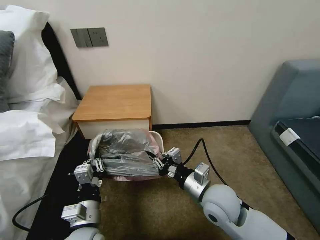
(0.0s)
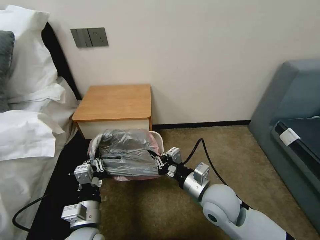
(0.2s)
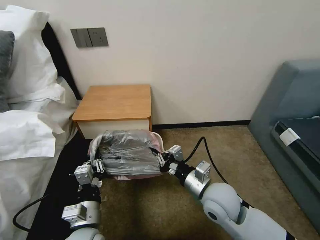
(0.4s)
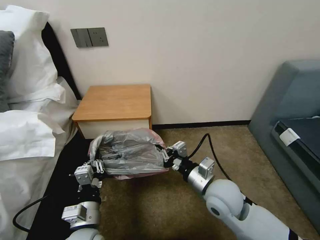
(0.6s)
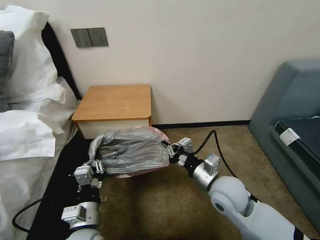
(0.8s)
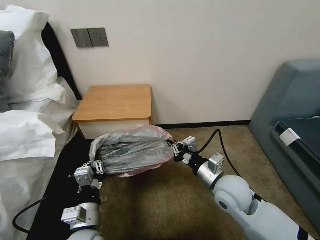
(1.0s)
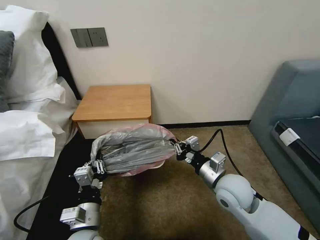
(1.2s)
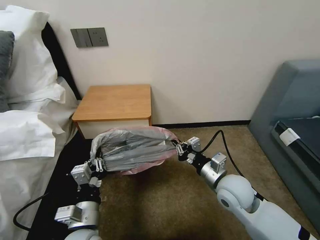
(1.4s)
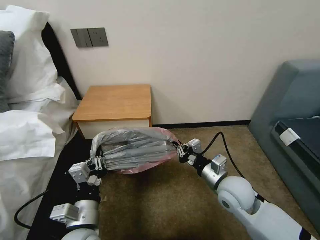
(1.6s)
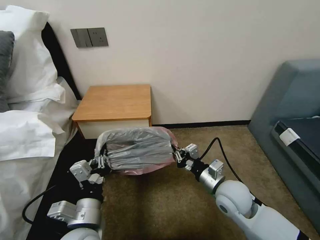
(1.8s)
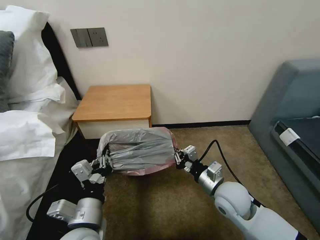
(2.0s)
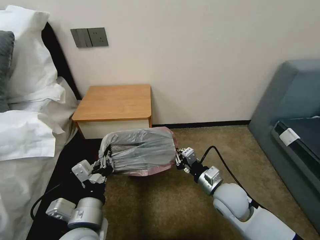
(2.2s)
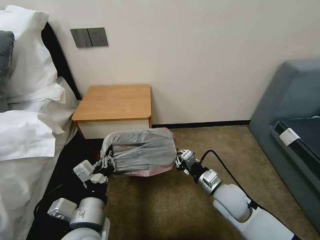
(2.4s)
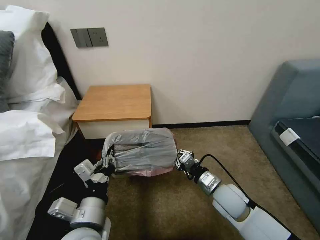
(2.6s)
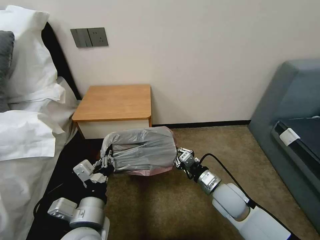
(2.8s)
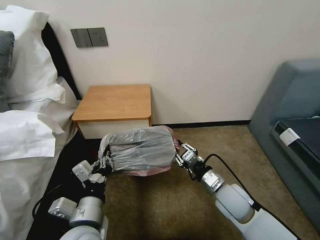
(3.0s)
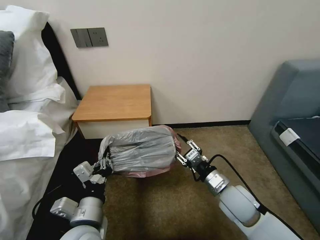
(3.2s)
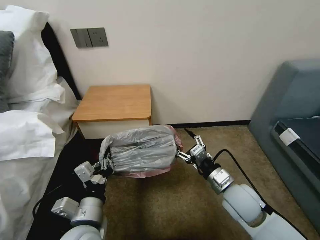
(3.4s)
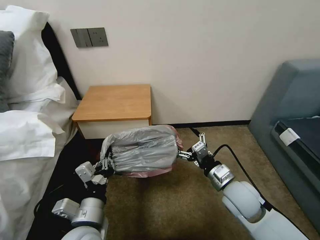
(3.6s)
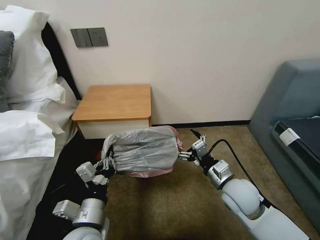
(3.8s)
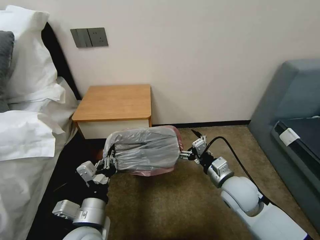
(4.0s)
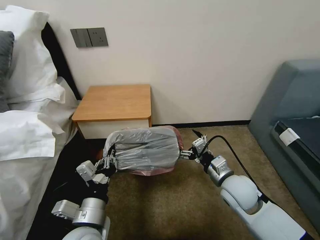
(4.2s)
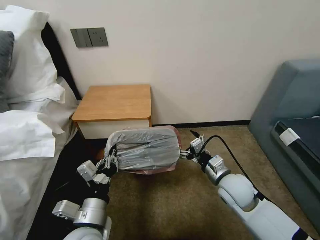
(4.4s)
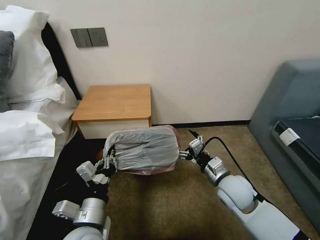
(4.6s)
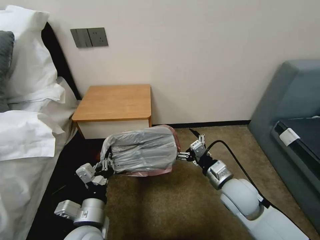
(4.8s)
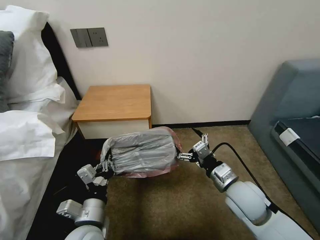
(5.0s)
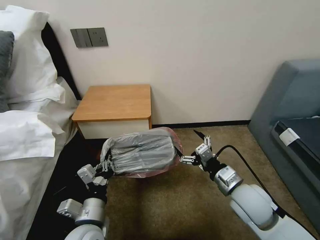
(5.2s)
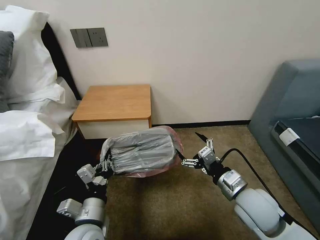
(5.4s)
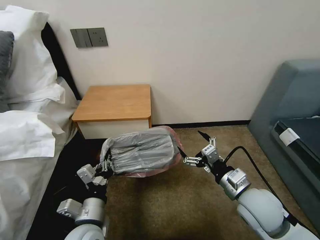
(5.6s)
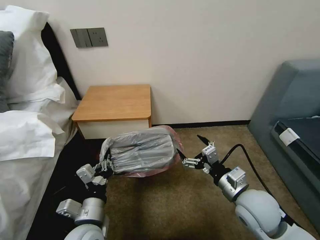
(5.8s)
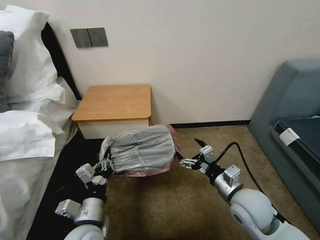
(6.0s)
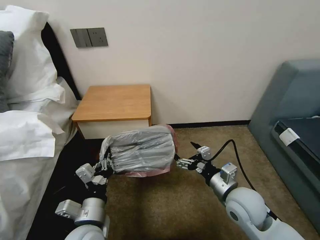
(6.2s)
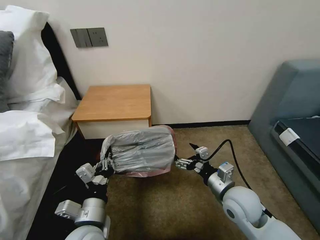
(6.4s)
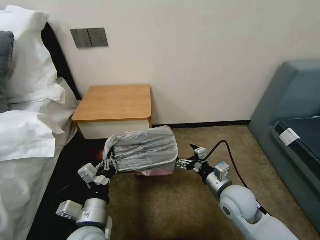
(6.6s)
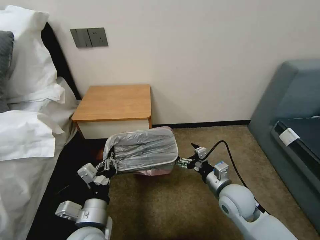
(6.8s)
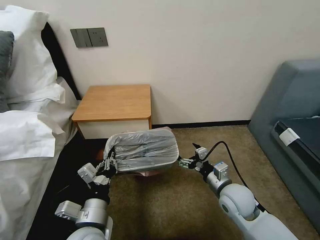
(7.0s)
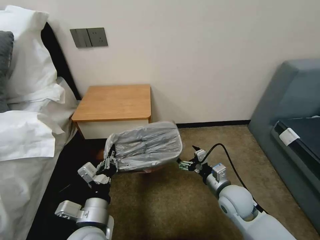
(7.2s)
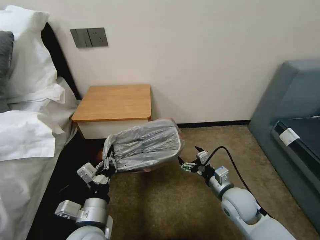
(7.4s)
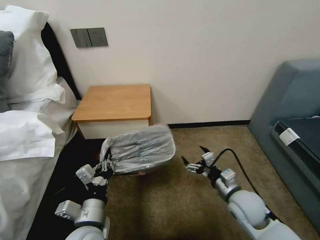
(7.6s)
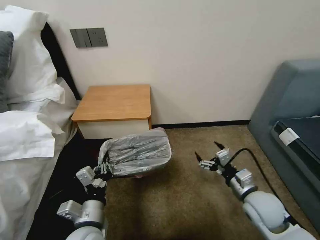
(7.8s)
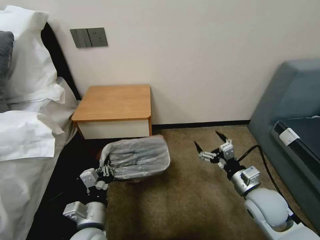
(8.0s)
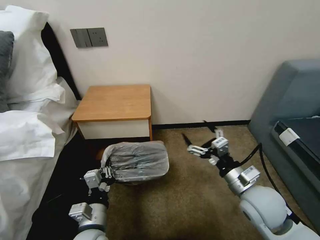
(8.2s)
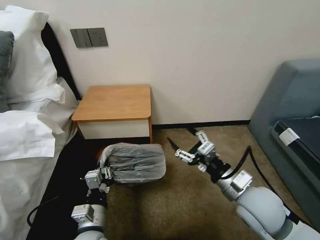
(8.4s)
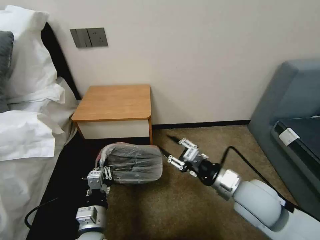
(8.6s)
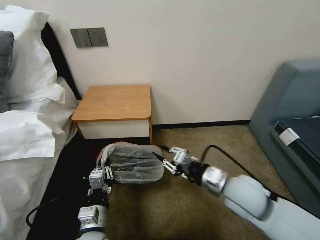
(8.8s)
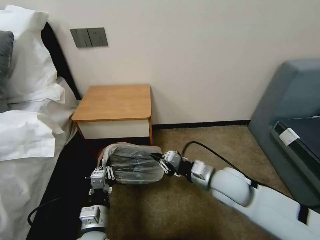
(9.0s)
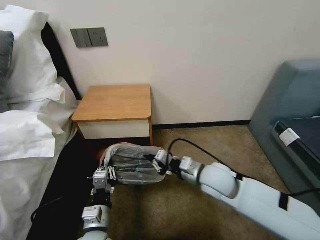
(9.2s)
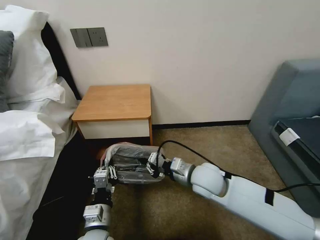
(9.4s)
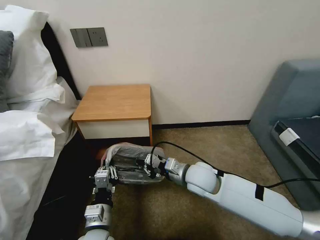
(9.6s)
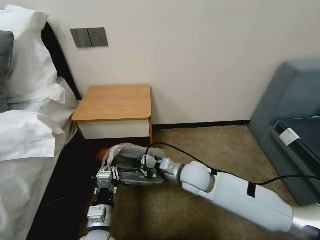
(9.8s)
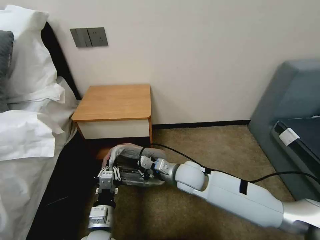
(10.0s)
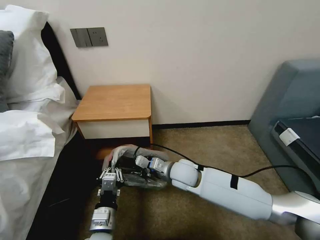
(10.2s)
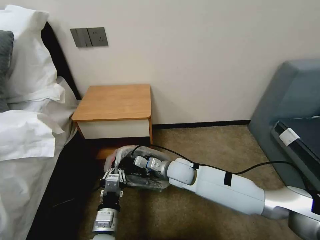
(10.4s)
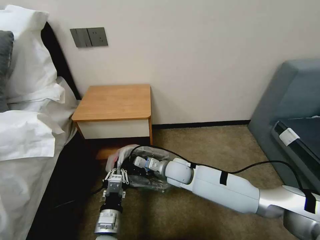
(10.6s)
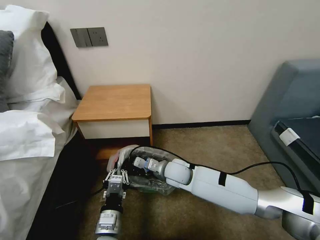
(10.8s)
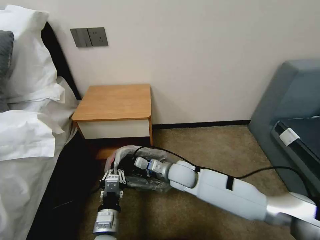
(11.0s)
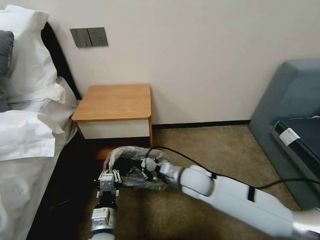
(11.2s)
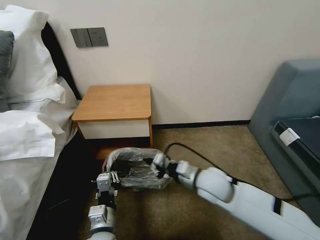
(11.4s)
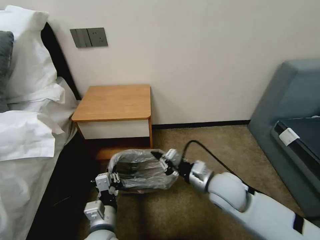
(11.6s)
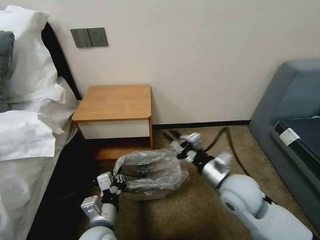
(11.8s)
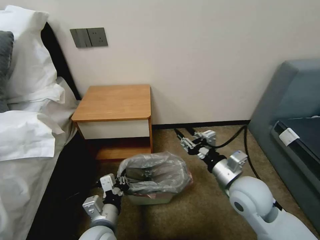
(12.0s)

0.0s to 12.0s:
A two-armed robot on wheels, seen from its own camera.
Task of the whole recording: Pick up the garbage bag from the table and place it over the trash can.
0.0s to 1.6s: The right gripper heads to the right, covering approximately 5 cm.
3.0s to 4.4s: The right gripper opens.
4.4s to 6.0s: The right gripper travels backward by roughly 5 cm.
6.0s to 7.6s: The right gripper goes about 5 cm downward.
7.6s to 9.0s: The right gripper is displaced to the left and upward by some 10 cm, and closes.
9.0s to 10.4s: The right gripper moves to the left, forward and downward, about 15 cm.
10.4s to 12.0s: The right gripper is displaced to the right, backward and upward by some 20 cm, and opens.

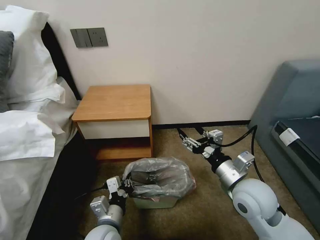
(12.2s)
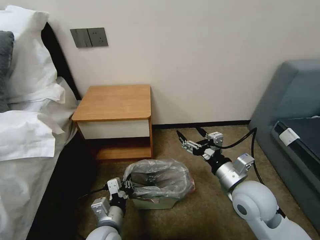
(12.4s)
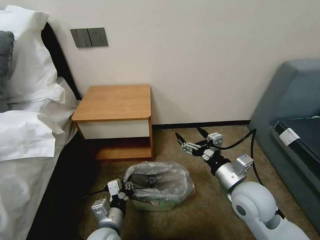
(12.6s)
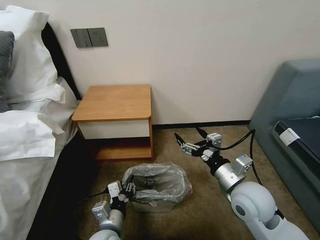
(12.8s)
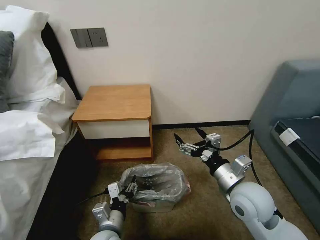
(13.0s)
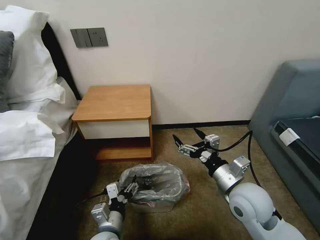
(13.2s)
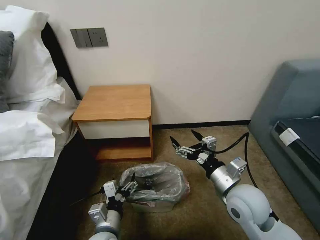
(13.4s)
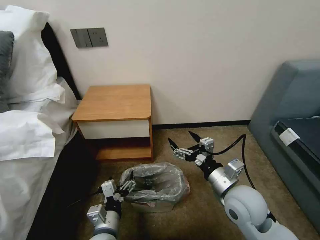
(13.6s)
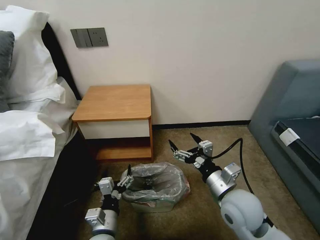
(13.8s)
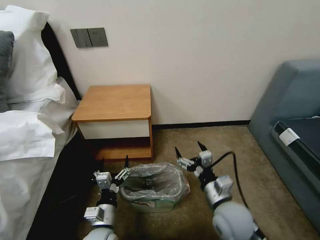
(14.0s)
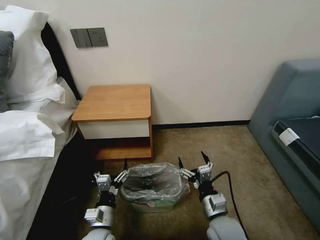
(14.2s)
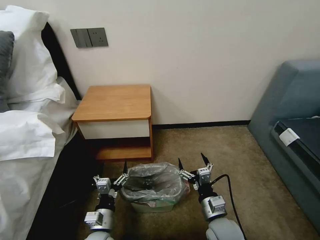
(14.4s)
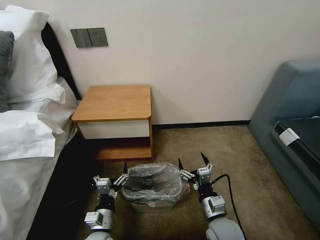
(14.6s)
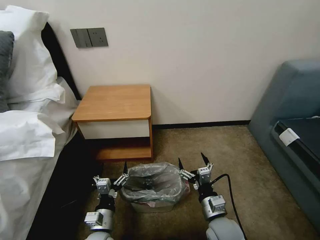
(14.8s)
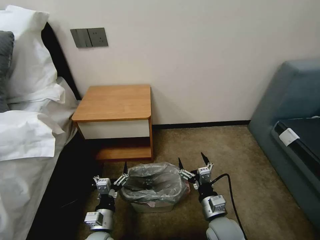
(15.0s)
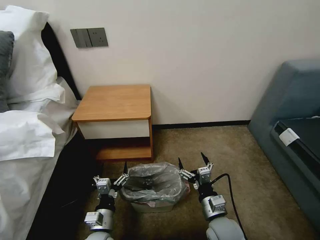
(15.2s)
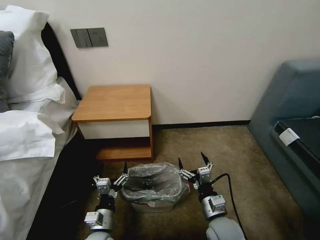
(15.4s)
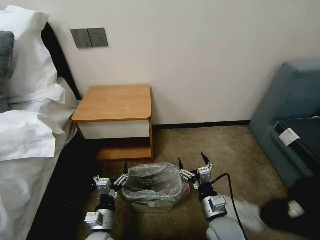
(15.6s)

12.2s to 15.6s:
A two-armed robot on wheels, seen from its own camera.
Task of the whole recording: Pick up the garbage bag from the table and place it over the trash can.
12.2s to 13.8s: The left gripper opens.
13.8s to 15.6s: The right gripper travels downward by some 10 cm, while the left gripper goes about 5 cm downward.
